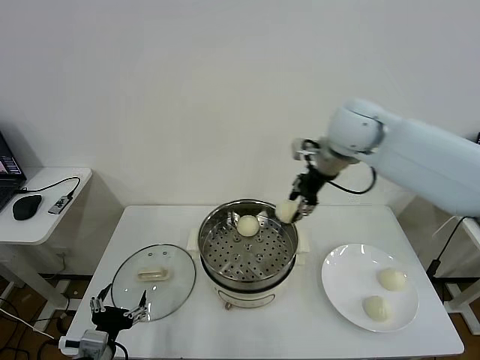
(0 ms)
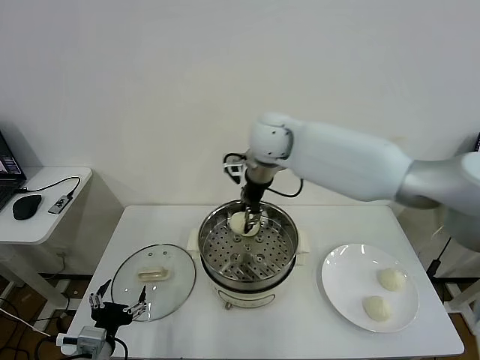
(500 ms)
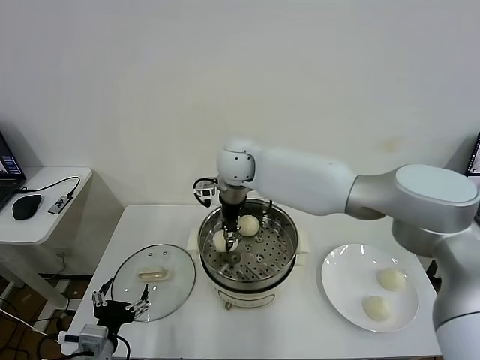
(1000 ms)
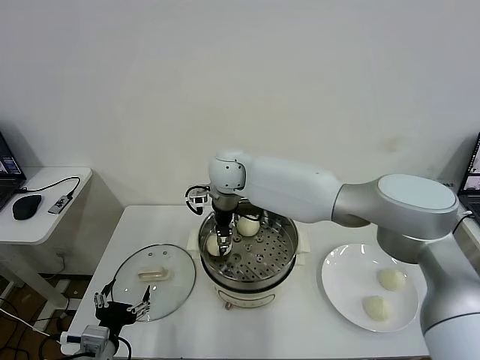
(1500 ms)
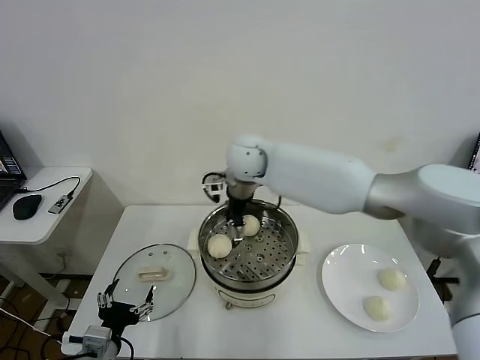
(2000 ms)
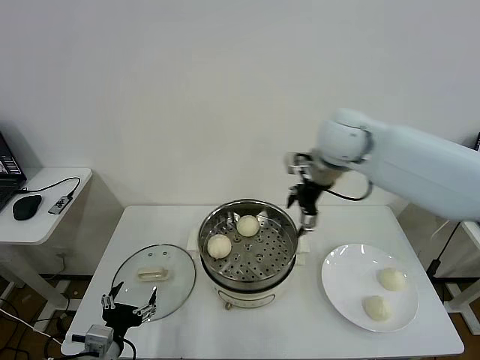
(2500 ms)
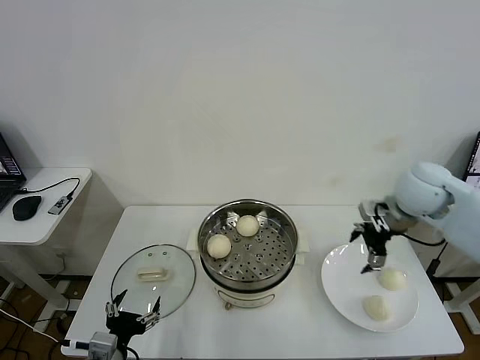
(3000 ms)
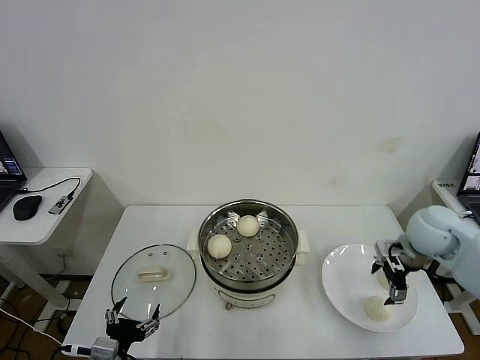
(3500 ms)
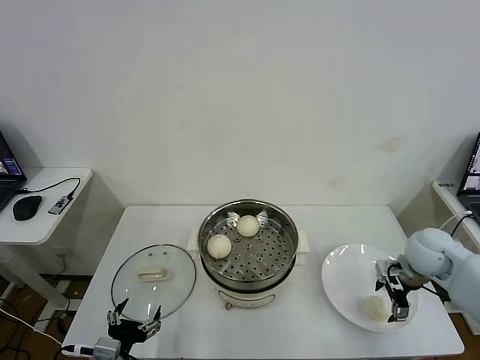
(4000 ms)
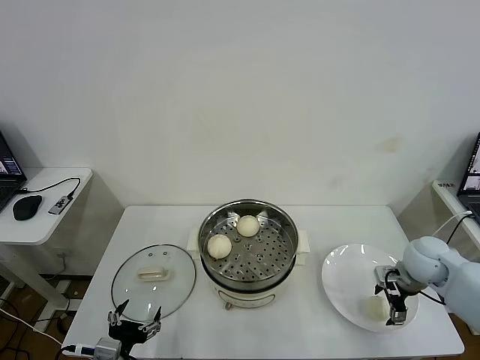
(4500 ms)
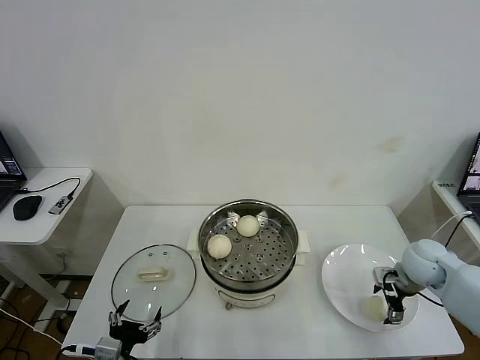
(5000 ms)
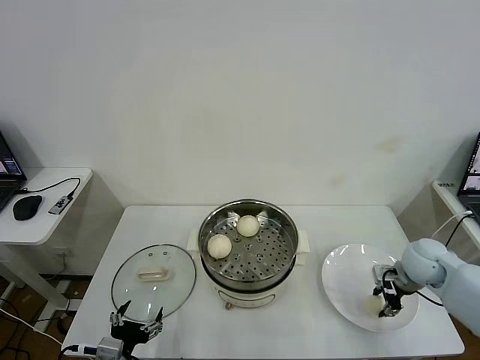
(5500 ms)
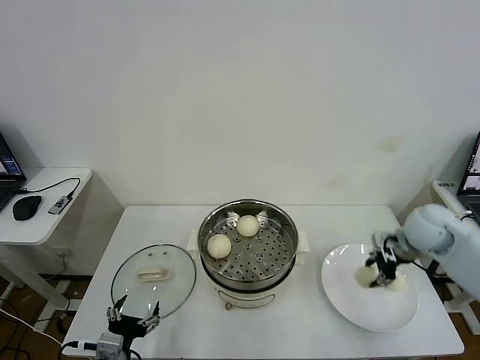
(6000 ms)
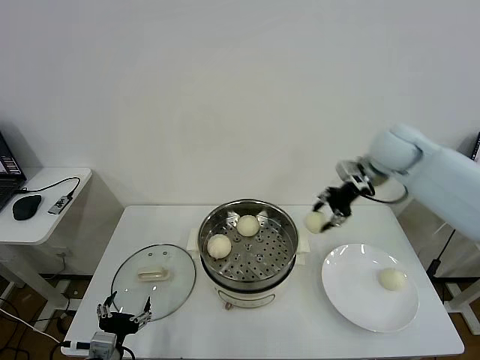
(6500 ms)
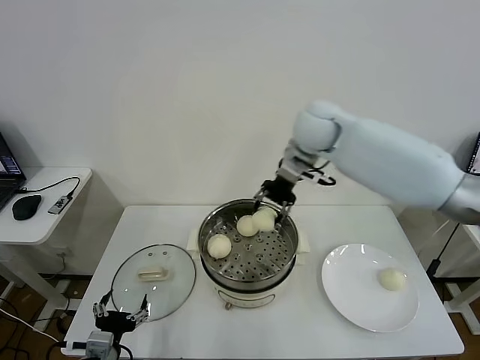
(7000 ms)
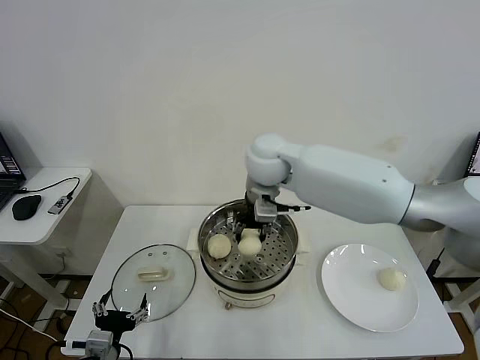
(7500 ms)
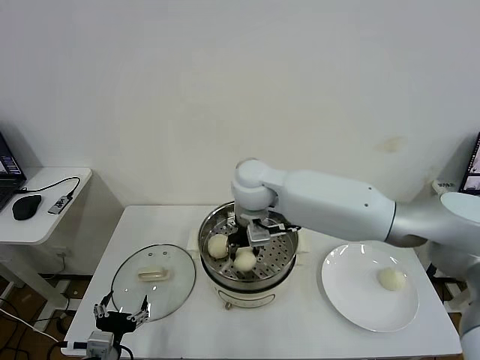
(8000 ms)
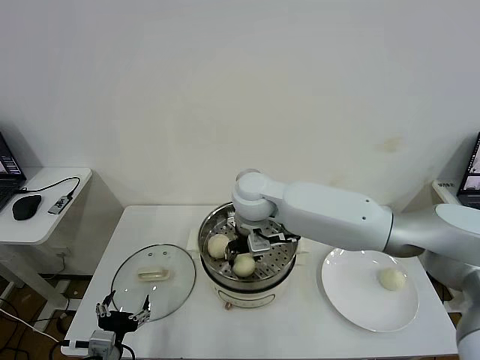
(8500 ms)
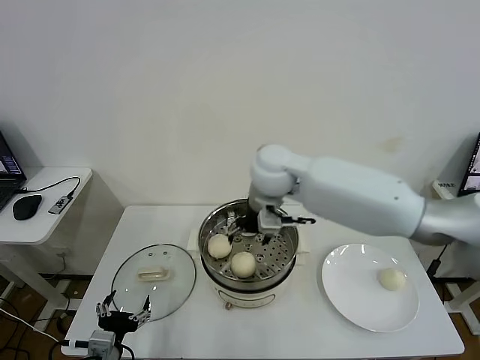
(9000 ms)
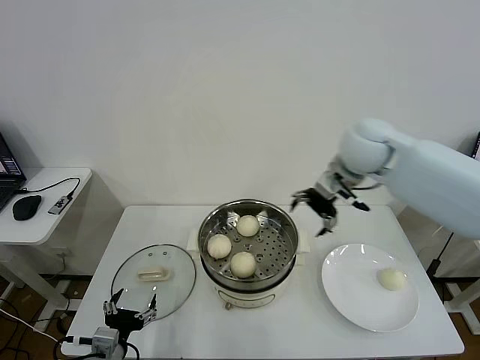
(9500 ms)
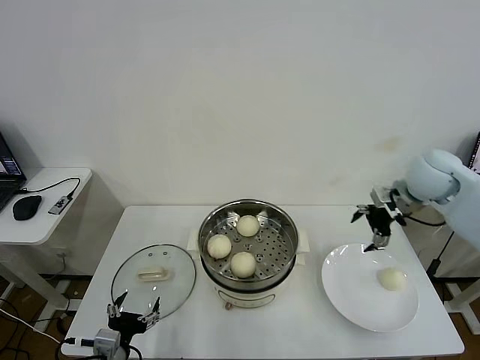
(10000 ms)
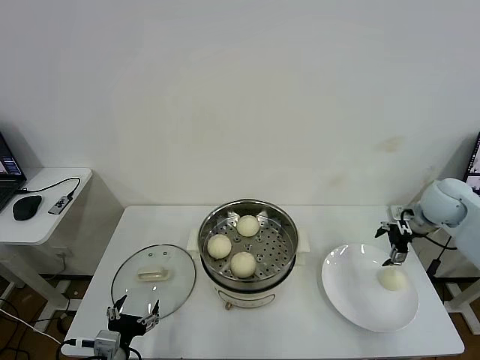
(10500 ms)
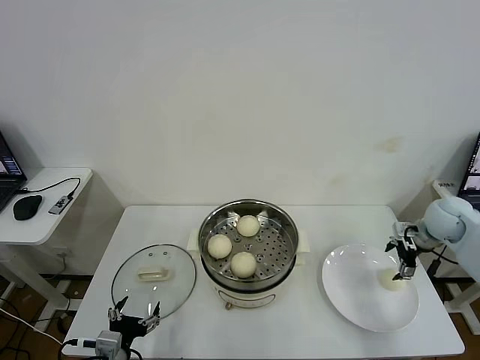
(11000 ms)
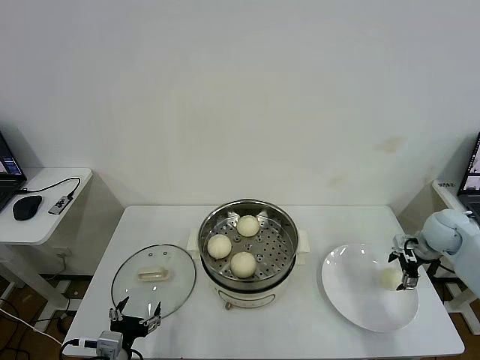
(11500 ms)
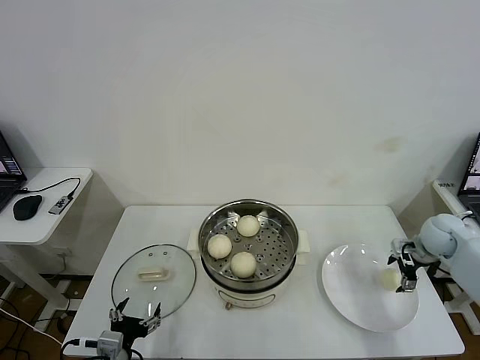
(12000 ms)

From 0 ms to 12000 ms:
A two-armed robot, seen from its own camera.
Task of the whole recording: take steamed baozi put them in steamer then cover it.
Step, from 0 ms to 1500 ms: Place the baozi on the steamer with right gripper.
Step, from 2000 ms to 5500 ms: Grasp the baozi in the plate with right gripper.
Step, from 6000 ms to 8500 ms: Place the baozi on the steamer with right gripper.
From 0 ms to 2000 ms: The right gripper moves to the left and downward, approximately 15 cm, and opens its fingers.
From 2000 ms to 4000 ms: The right gripper travels to the right and downward by some 40 cm.
From 4000 ms to 6000 ms: The right gripper is displaced upward by some 5 cm, and closes.
From 6000 ms to 8000 ms: The right gripper moves to the left, roughly 35 cm.
From 8000 ms to 10000 ms: The right gripper heads to the right, covering some 35 cm, and opens up.
From 10000 ms to 12000 ms: The right gripper shifts roughly 20 cm downward and to the right.

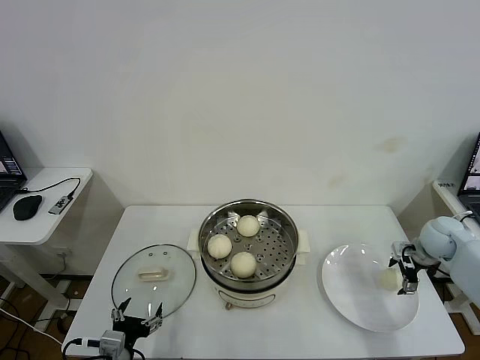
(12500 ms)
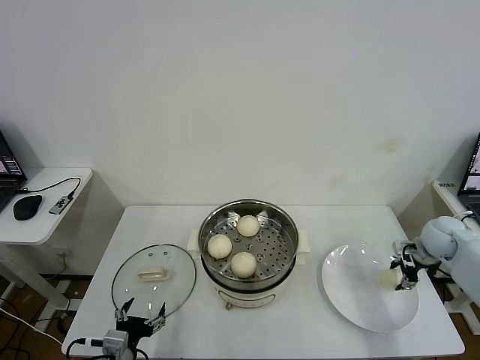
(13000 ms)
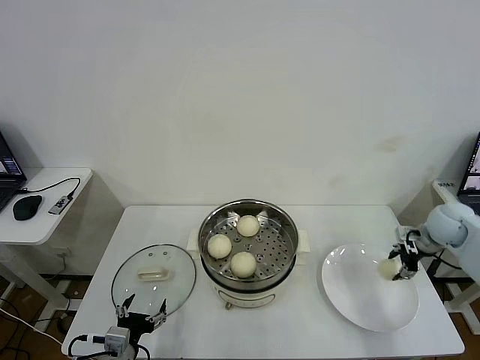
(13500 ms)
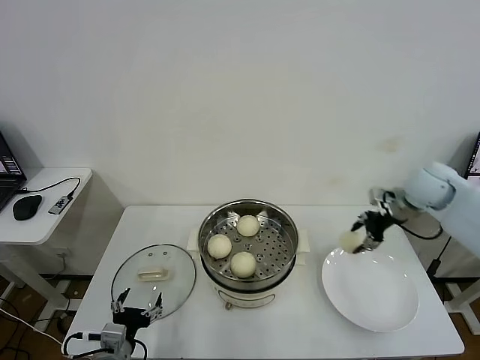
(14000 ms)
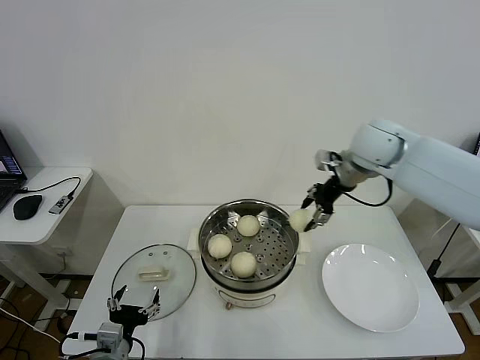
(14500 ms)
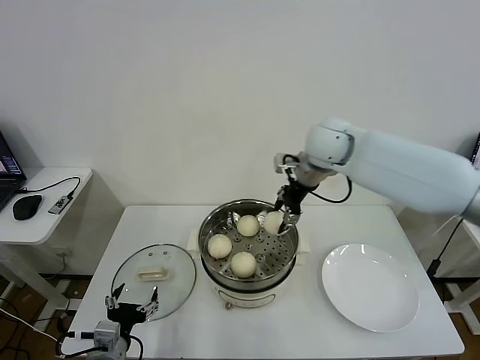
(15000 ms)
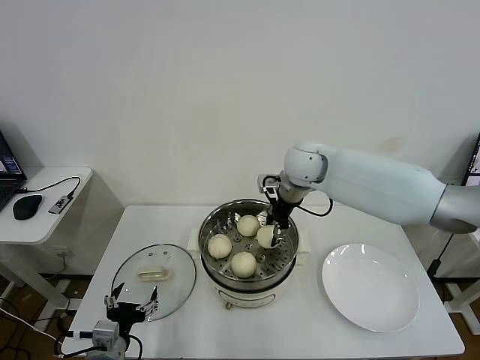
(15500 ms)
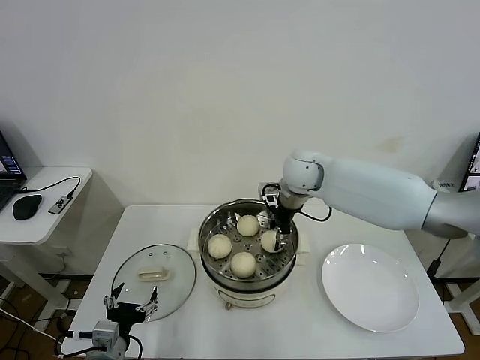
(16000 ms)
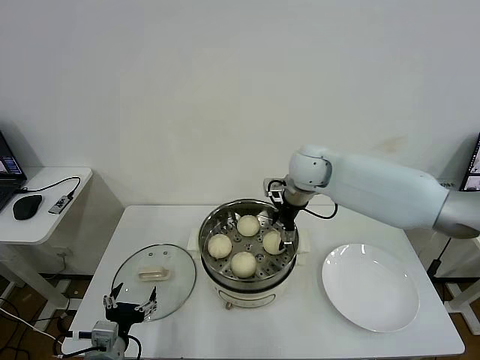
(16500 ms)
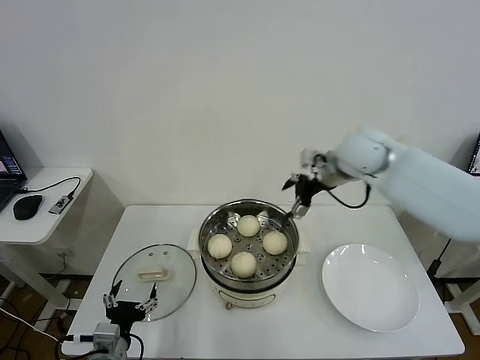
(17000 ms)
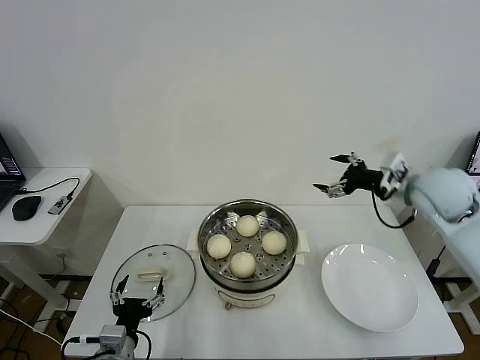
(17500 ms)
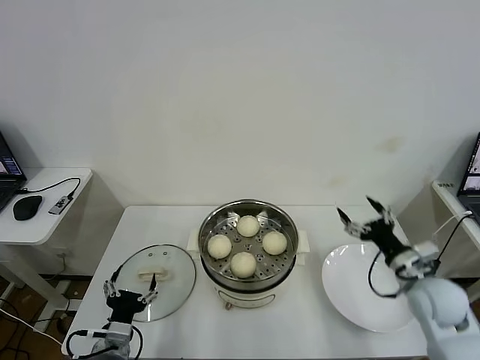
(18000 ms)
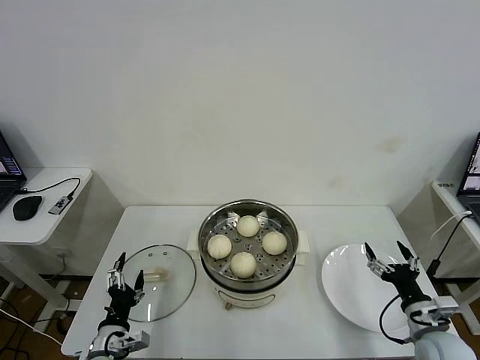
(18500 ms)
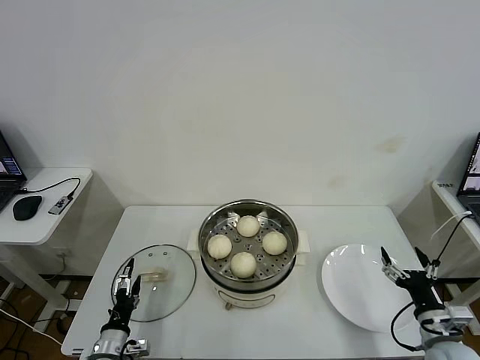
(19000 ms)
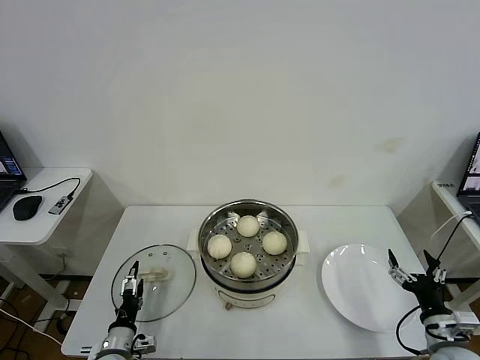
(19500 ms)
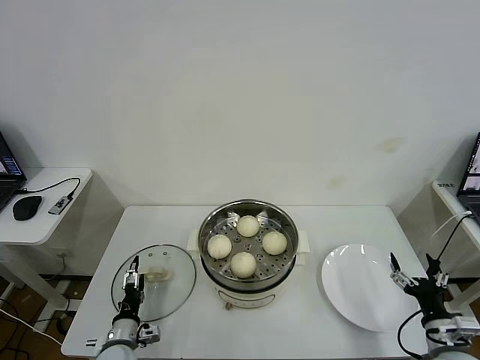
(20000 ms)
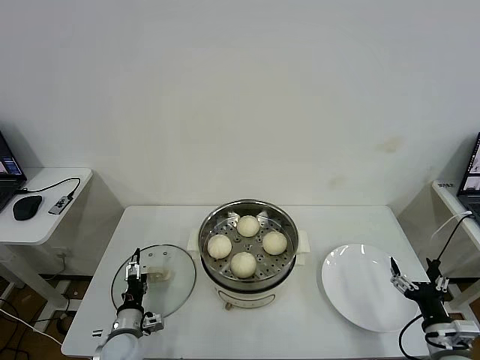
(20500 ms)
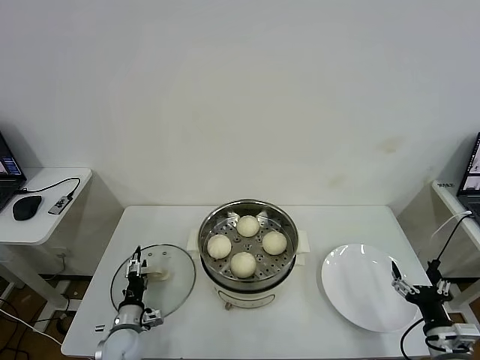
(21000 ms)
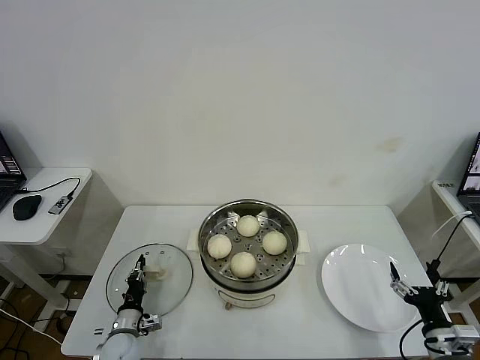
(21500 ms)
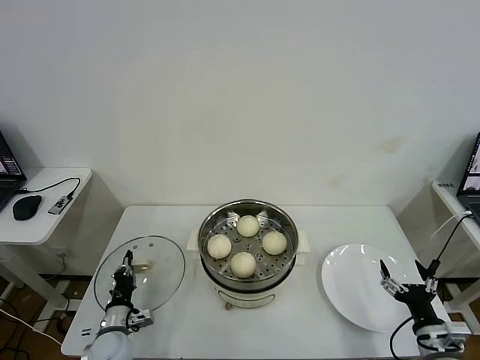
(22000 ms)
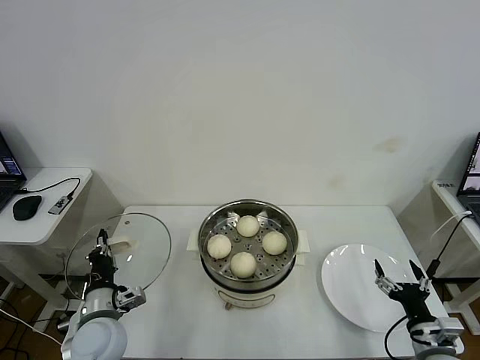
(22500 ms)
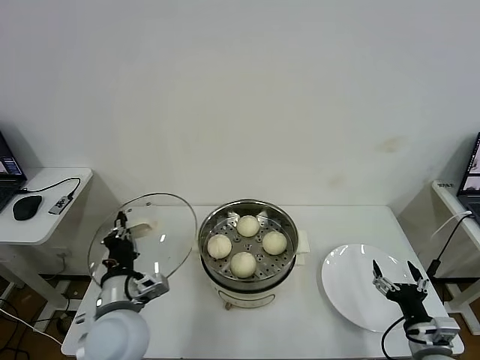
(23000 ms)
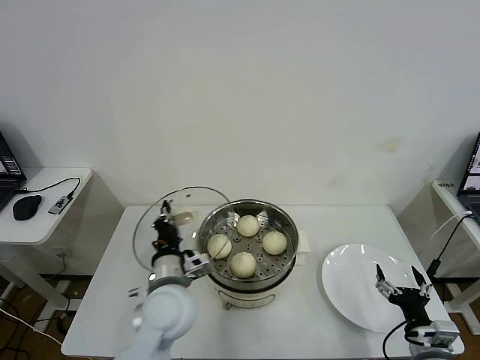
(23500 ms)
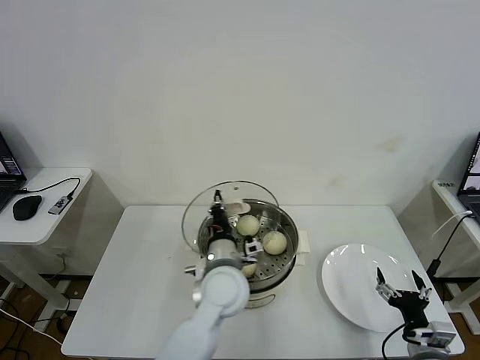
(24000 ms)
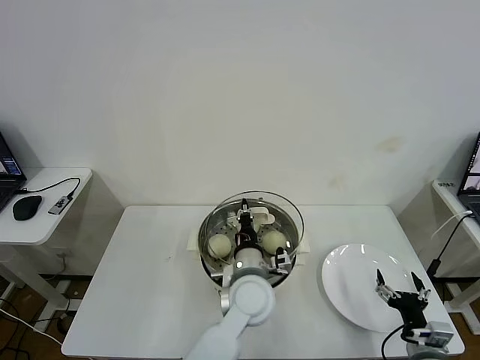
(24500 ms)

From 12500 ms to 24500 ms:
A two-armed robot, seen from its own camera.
Task of the whole recording: take steamed baozi put them in steamer then cover it.
Step, from 13500 ms to 16500 ms: Place the baozi on the steamer with right gripper.
Step, from 17000 ms to 21500 ms: Grasp the pot lid with left gripper.
From 12500 ms to 14500 ms: The right gripper heads to the left and upward, covering approximately 30 cm, and closes up.
From 14500 ms to 16500 ms: The right gripper shifts roughly 15 cm to the left and downward, and opens up.
From 16500 ms to 18500 ms: The left gripper is displaced downward by some 5 cm, while the right gripper moves backward, to the right and downward, about 50 cm.
From 18500 ms to 20500 ms: The left gripper heads downward and forward, covering about 10 cm. The right gripper shifts by some 5 cm.
From 20500 ms to 22500 ms: The left gripper travels upward by some 15 cm, and closes up.
From 22500 ms to 24500 ms: The left gripper travels to the right by some 30 cm.

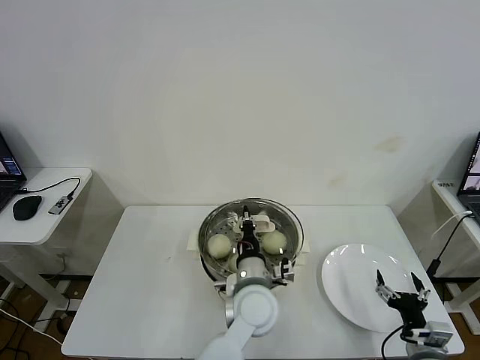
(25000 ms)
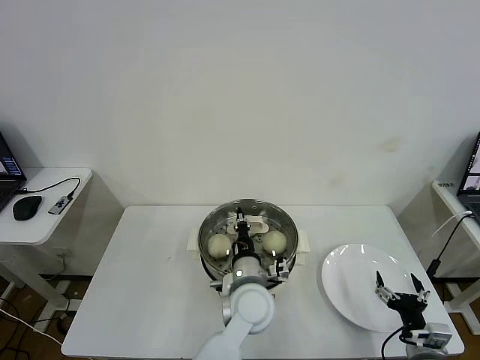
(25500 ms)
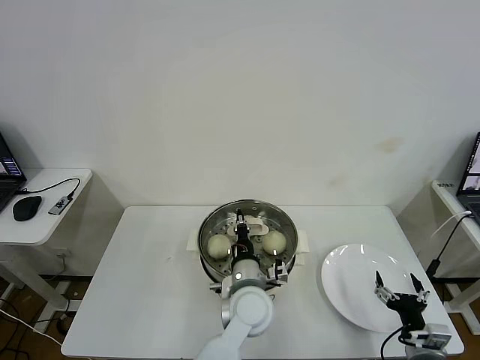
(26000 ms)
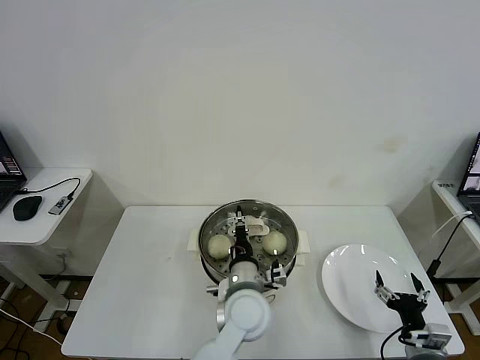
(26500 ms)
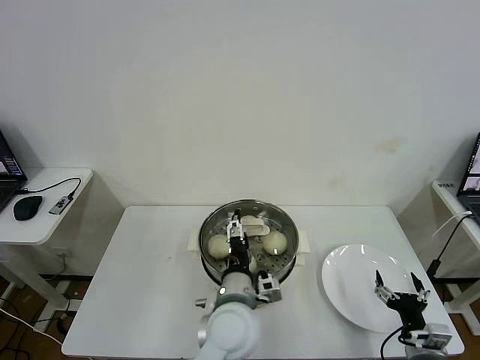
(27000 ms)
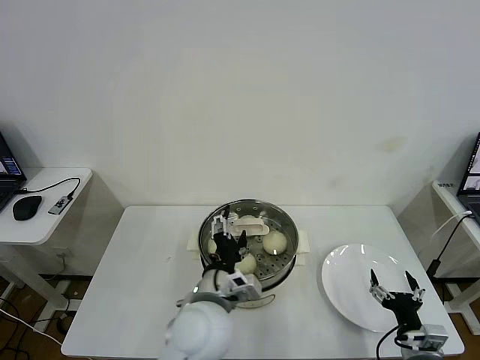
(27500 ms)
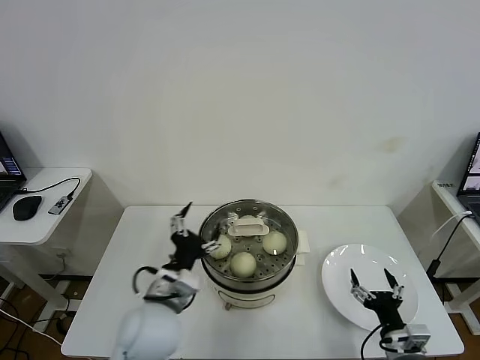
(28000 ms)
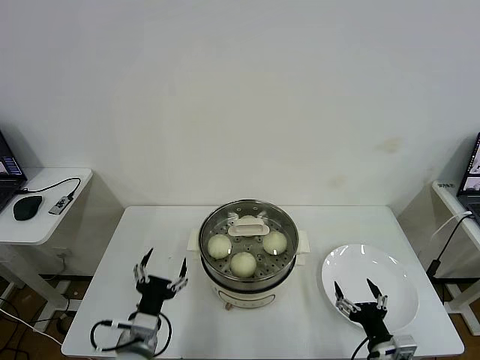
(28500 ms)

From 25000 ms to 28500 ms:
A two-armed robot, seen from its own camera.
Task of the whole recording: take steamed baozi put them in steamer then cover it.
Step, from 25000 ms to 27000 ms: Place the pot lid on the steamer with left gripper.
From 25000 ms to 27000 ms: The left gripper ends up about 5 cm from where it was, and opens.
From 27000 ms to 28500 ms: The left gripper travels to the left by roughly 20 cm, while the right gripper goes about 5 cm to the left.
